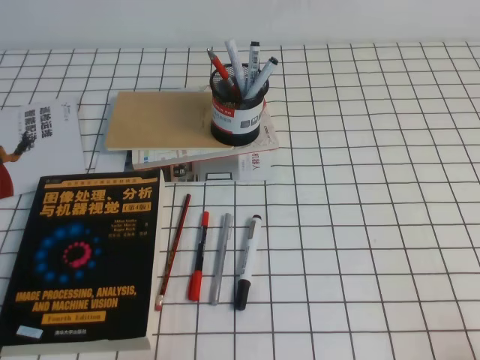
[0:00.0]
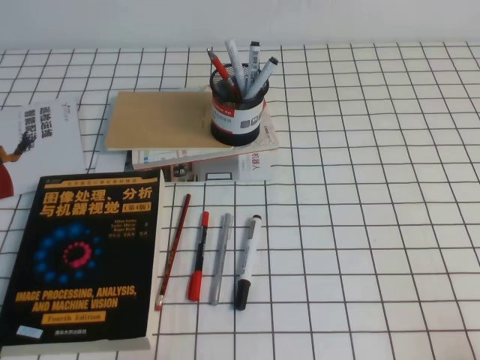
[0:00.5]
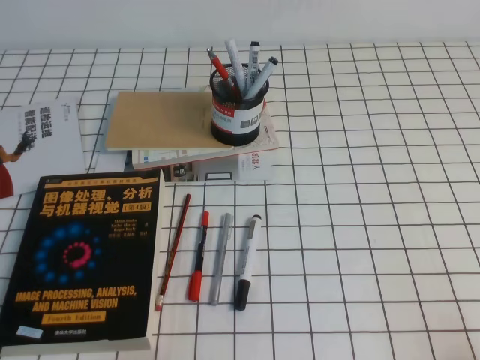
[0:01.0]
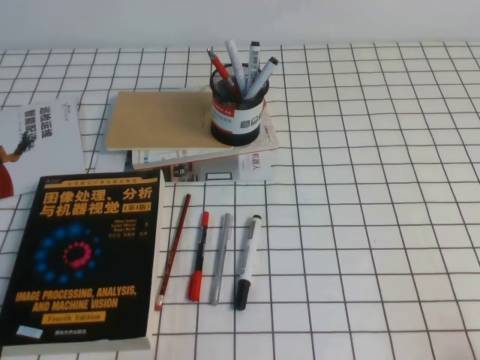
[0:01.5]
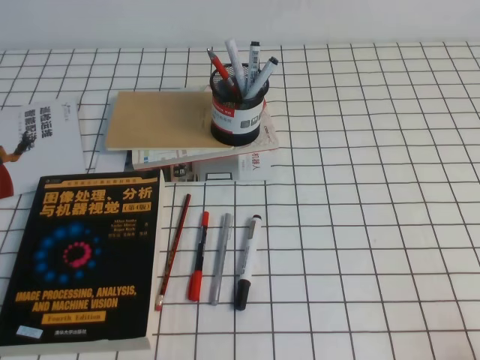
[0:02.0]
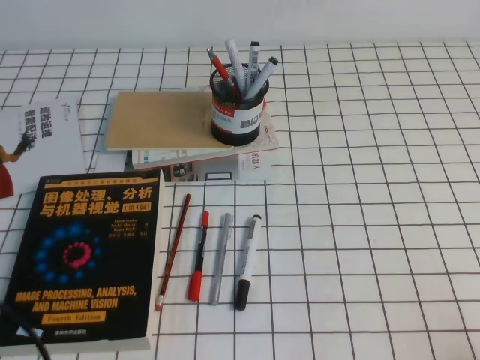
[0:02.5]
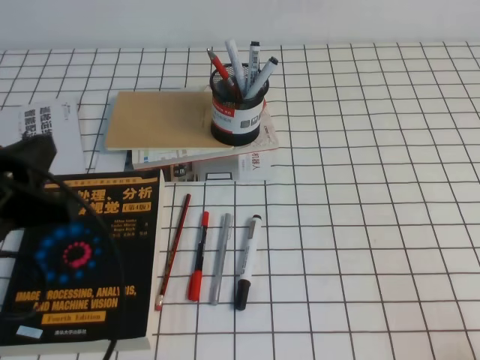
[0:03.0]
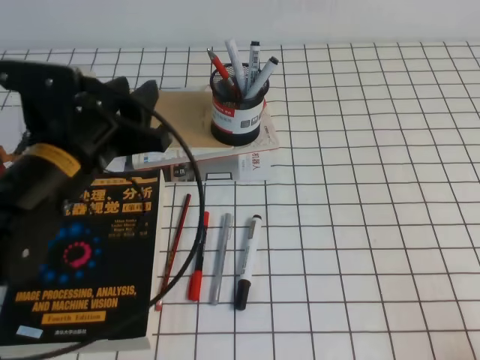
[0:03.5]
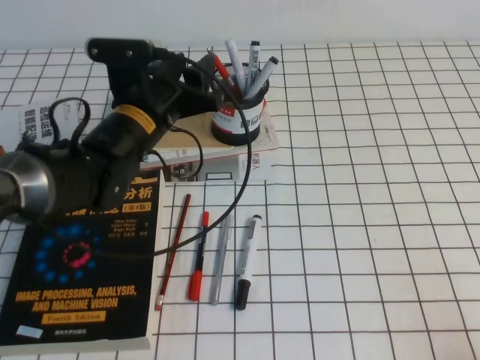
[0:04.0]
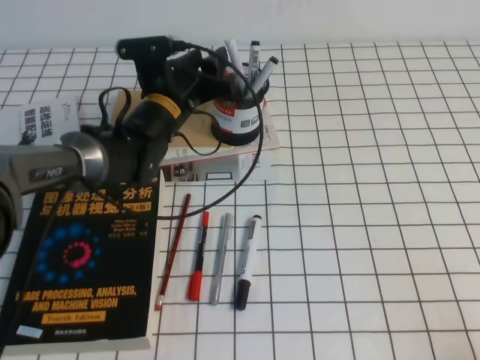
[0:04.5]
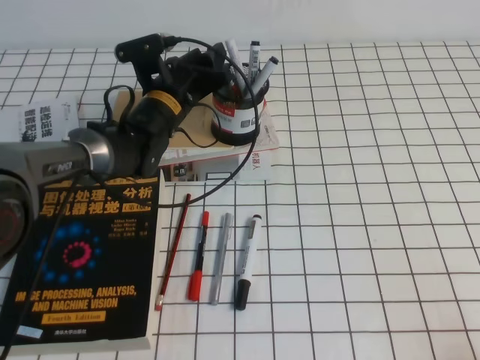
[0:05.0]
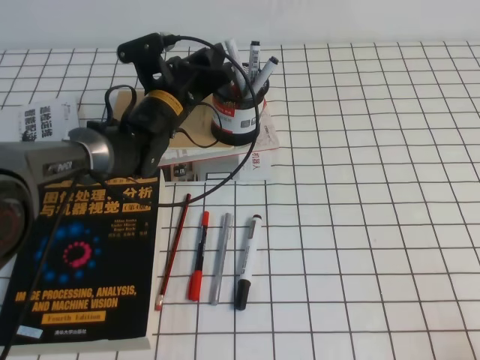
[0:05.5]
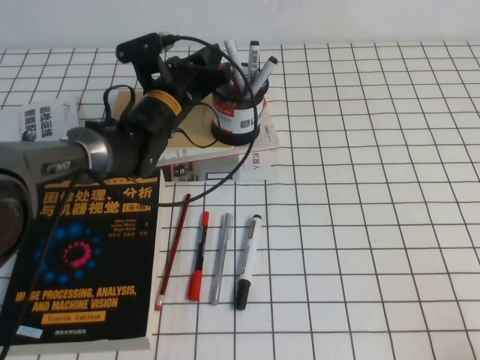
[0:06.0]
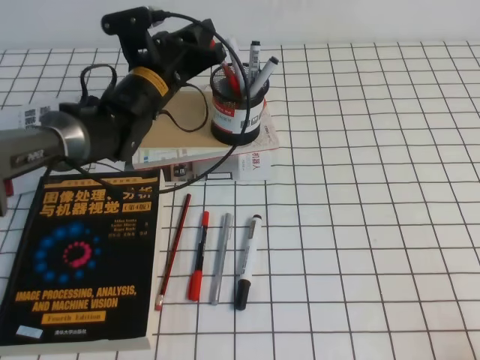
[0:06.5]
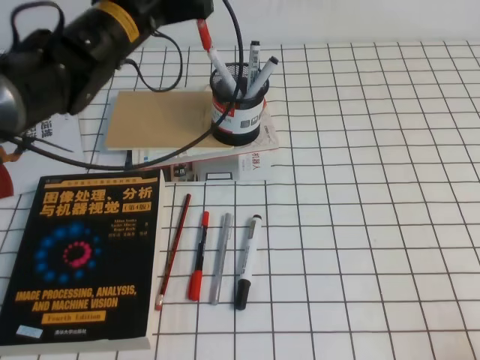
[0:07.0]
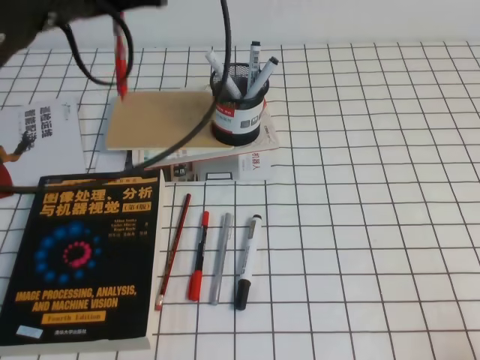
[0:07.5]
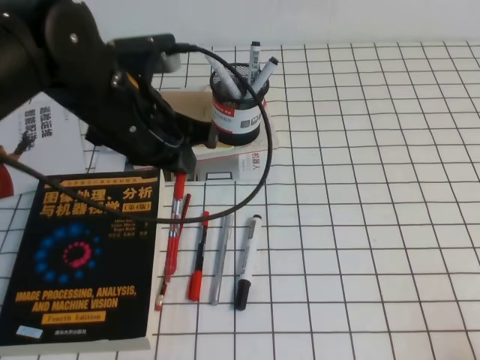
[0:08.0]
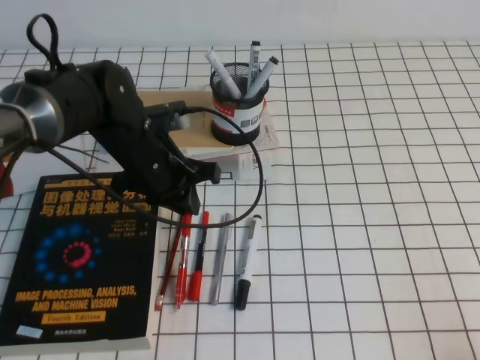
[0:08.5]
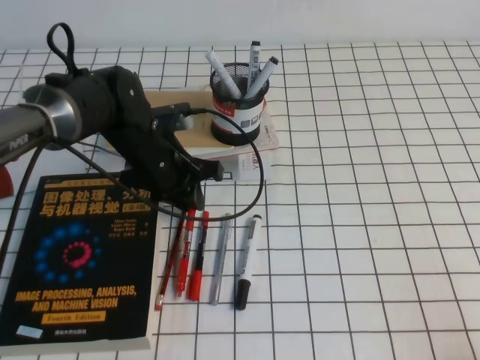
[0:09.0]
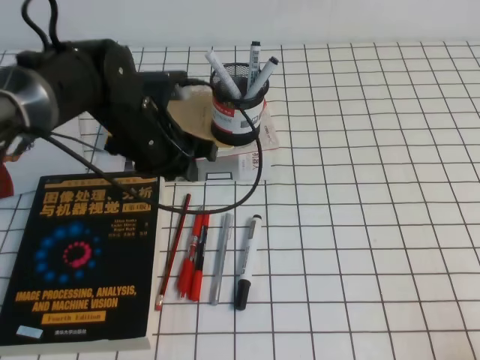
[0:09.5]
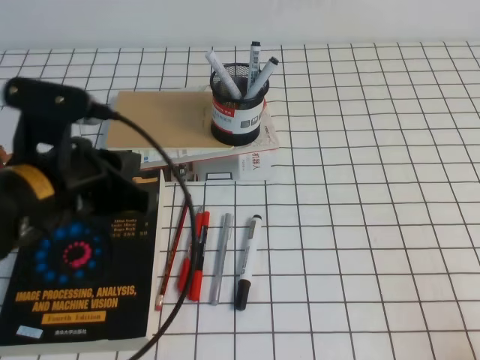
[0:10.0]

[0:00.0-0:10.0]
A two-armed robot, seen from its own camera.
0:02.0 to 0:04.0: The left gripper moves forward and to the right, roughly 35 cm, and opens up.
0:04.0 to 0:06.0: The left gripper goes approximately 15 cm forward and downward, and closes up.
0:06.0 to 0:08.0: The left gripper goes about 20 cm backward and upward.
0:08.0 to 0:10.0: The left gripper moves roughly 15 cm downward and comes back, and opens, then closes again.

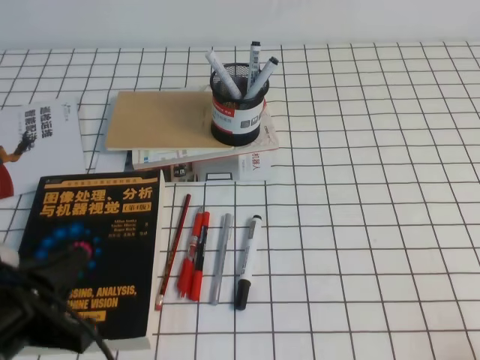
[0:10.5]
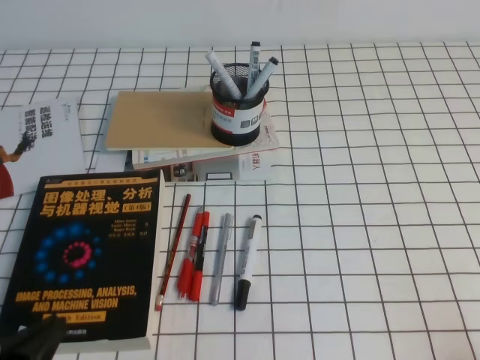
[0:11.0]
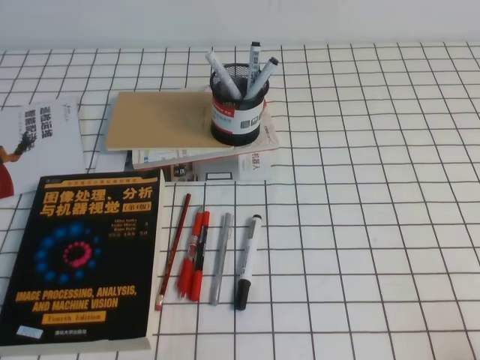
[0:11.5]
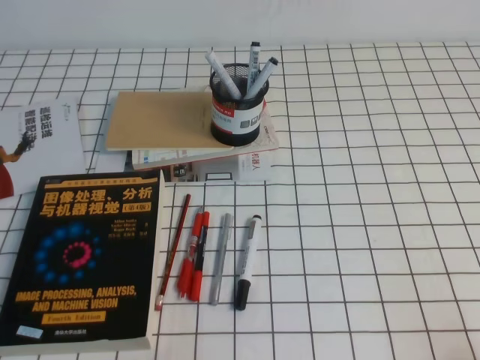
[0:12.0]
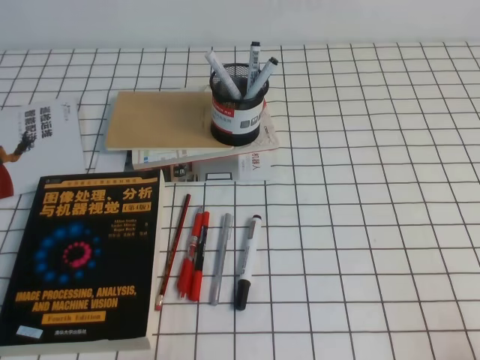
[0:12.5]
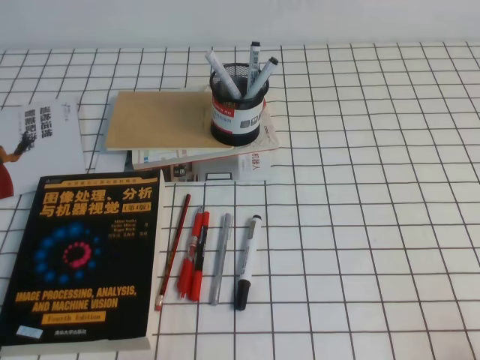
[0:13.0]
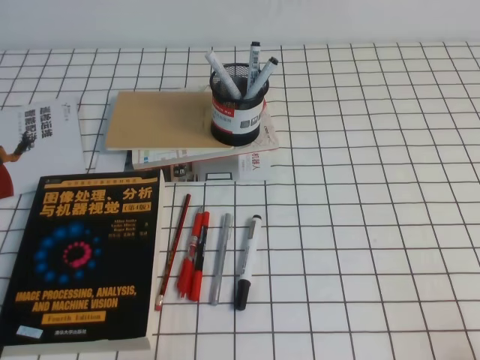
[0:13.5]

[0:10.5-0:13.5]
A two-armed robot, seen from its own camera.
Step, 0:10.5 to 0:13.5: Pick up the pen from the pen holder.
0:10.5 to 0:12.0: The left gripper moves backward, downward and to the left, approximately 15 cm.
